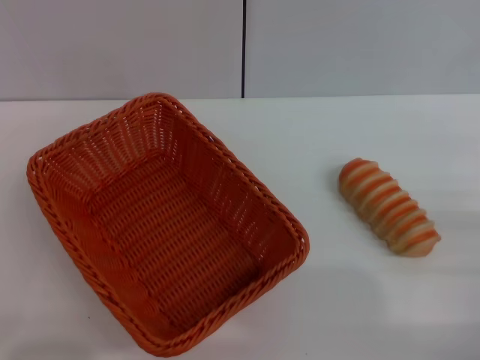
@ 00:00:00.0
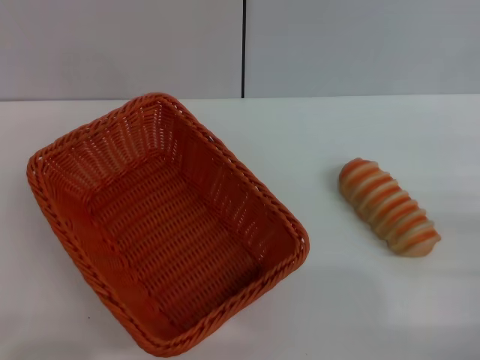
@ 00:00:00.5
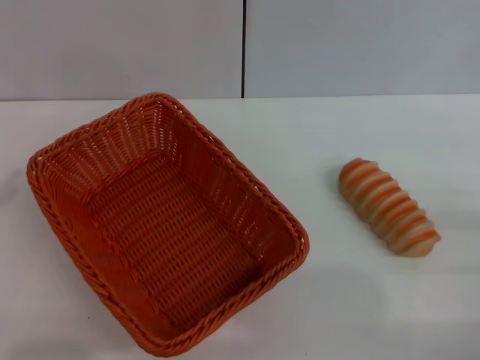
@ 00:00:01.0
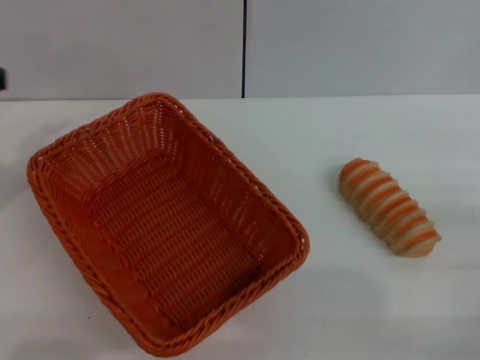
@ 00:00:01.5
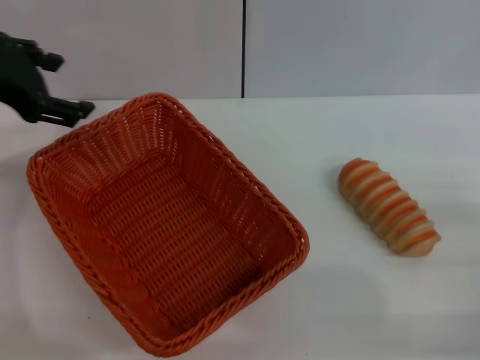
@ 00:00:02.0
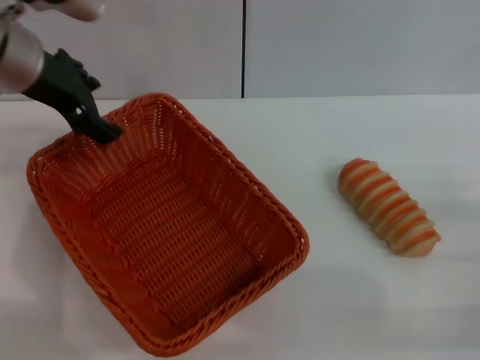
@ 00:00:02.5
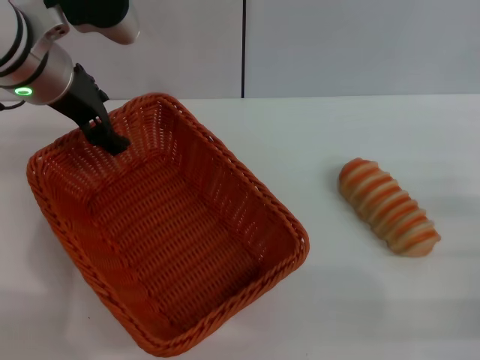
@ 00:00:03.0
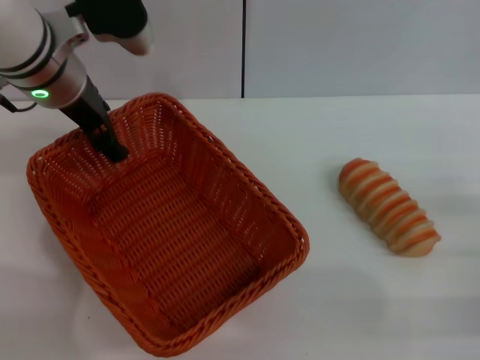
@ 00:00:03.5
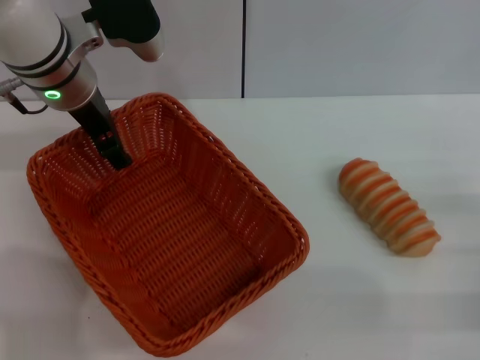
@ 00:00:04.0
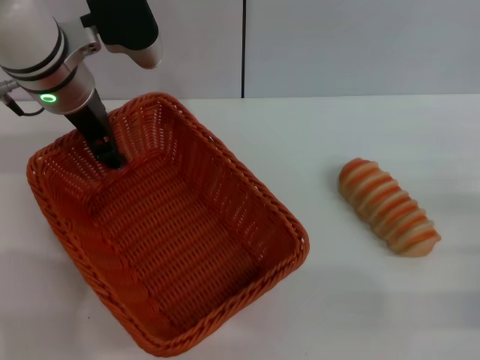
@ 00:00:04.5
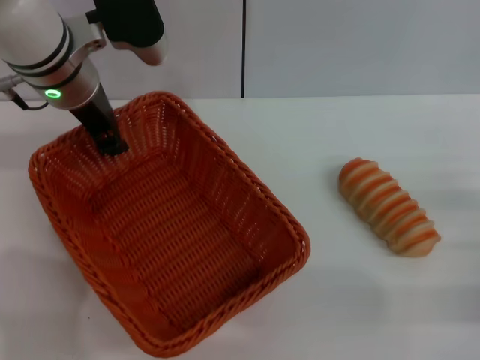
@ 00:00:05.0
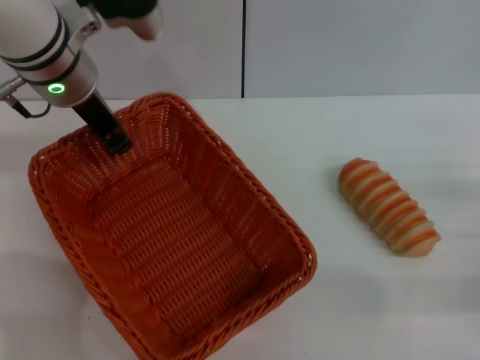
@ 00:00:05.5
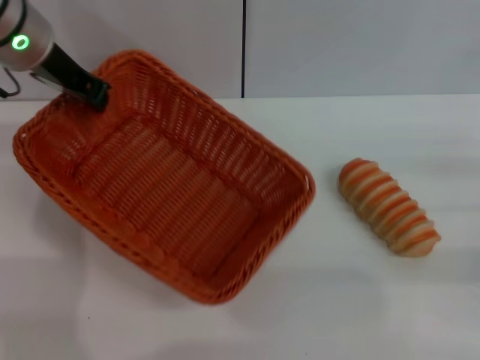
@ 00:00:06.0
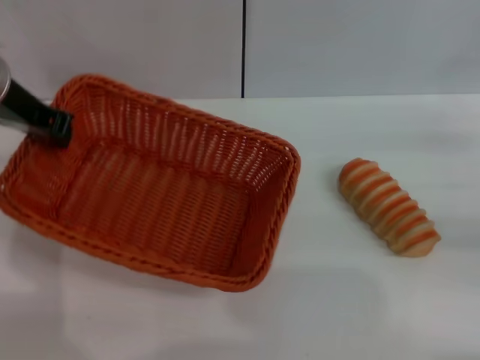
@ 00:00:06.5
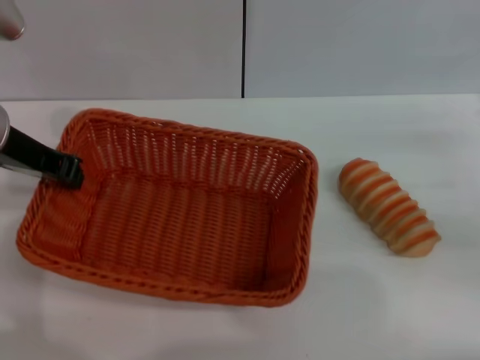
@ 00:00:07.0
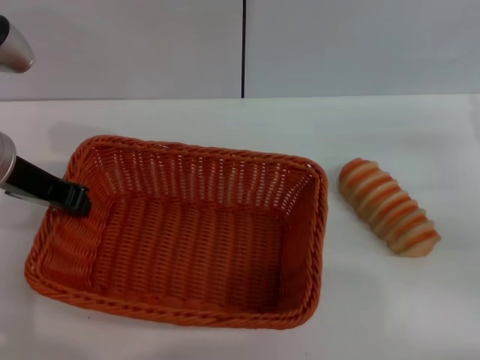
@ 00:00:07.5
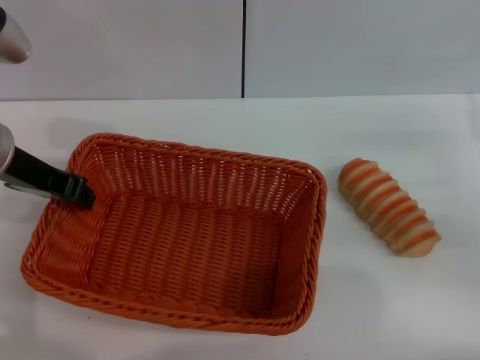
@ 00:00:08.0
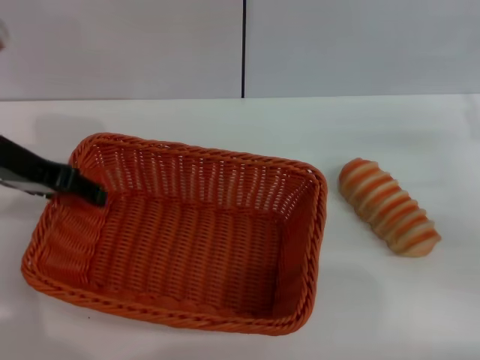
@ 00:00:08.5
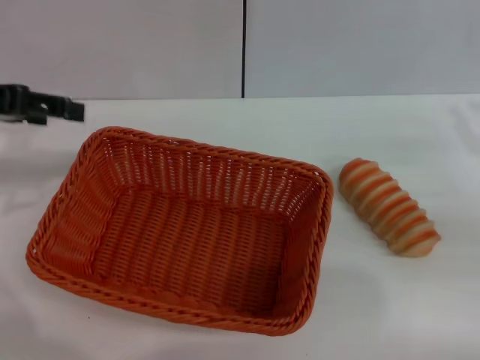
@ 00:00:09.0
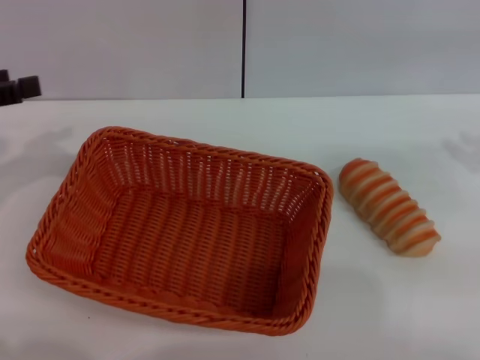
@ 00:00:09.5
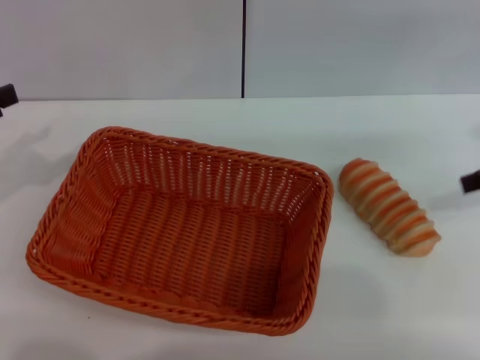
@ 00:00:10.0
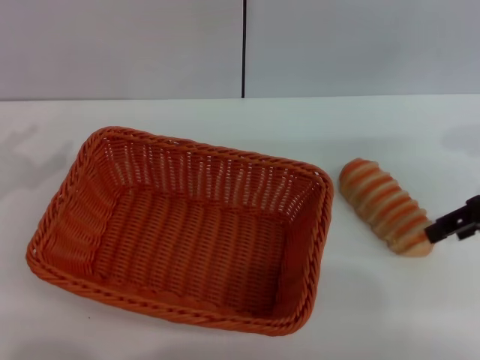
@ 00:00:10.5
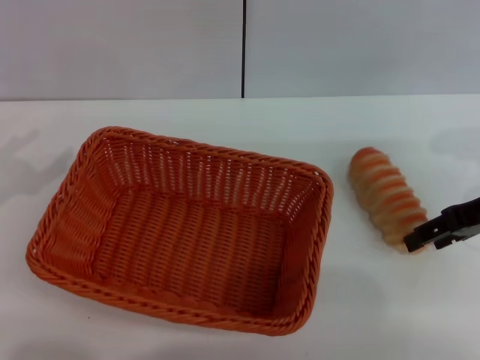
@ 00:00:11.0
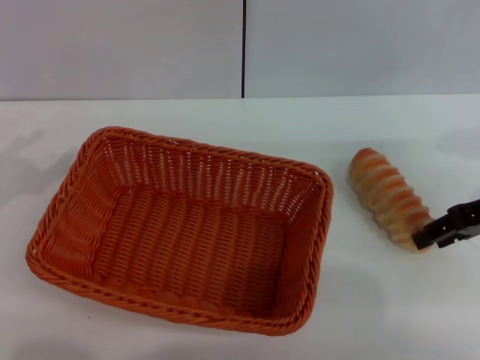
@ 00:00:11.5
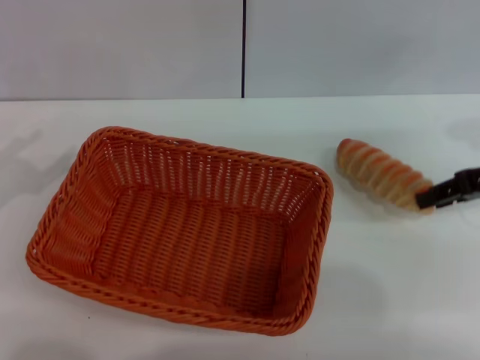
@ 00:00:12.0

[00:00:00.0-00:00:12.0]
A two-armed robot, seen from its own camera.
Step, 00:00:00.0 to 00:00:06.0: Pick up the light basket with the left gripper.
Step, 00:00:06.5 to 00:00:08.5: Place the light basket in the center of view with the left gripper.
00:00:00.0 to 00:00:02.0: The left gripper travels upward and forward by approximately 30 cm, and opens.
00:00:02.0 to 00:00:04.0: The left gripper moves to the right, forward and downward, approximately 15 cm.
00:00:04.0 to 00:00:06.0: The left gripper changes place by about 5 cm, and closes; the right gripper ends up roughly 5 cm from where it was.
00:00:06.0 to 00:00:08.0: The right gripper shifts by approximately 5 cm; the left gripper travels backward by about 10 cm.
00:00:08.0 to 00:00:10.0: The left gripper travels to the left and backward by approximately 15 cm, and opens its fingers, while the right gripper heads upward, covering about 10 cm.
00:00:10.0 to 00:00:12.0: The right gripper closes up.

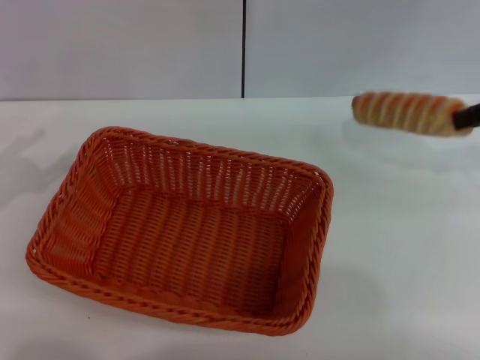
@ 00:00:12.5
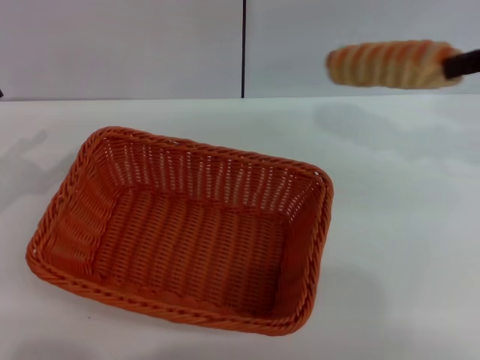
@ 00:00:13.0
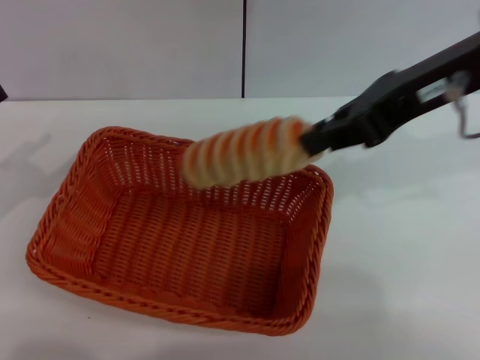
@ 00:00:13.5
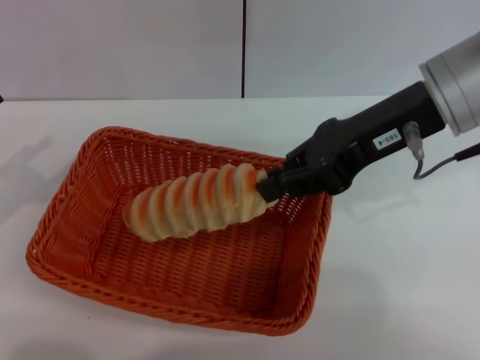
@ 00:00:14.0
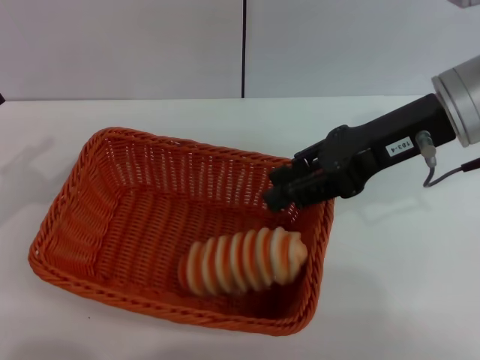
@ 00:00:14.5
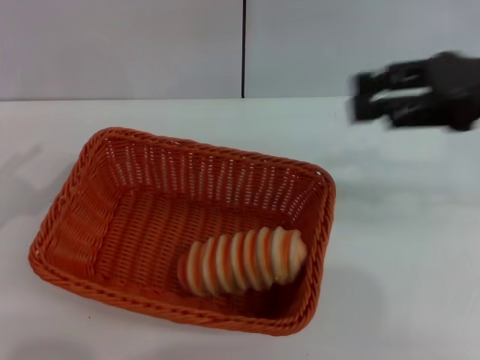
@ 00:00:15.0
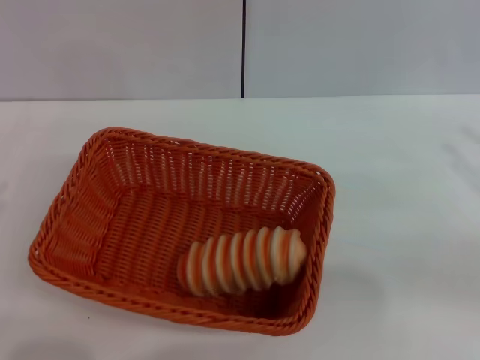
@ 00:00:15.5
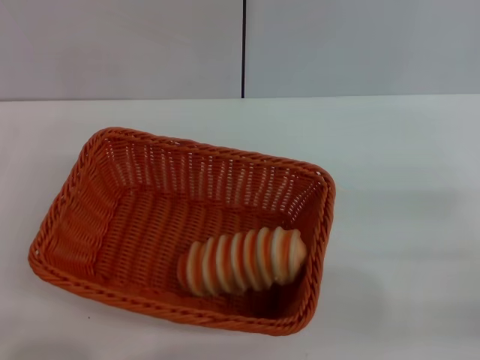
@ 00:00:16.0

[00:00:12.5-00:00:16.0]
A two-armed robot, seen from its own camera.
Step, 00:00:13.0 to 00:00:14.5: Place the long bread into the light basket with the right gripper.
00:00:12.5 to 00:00:14.5: The right gripper is displaced to the left by some 15 cm, and closes, then reopens.
00:00:14.5 to 00:00:16.0: The left gripper heads backward and downward, covering about 10 cm, while the right gripper heads to the right, downward and backward, covering roughly 25 cm.

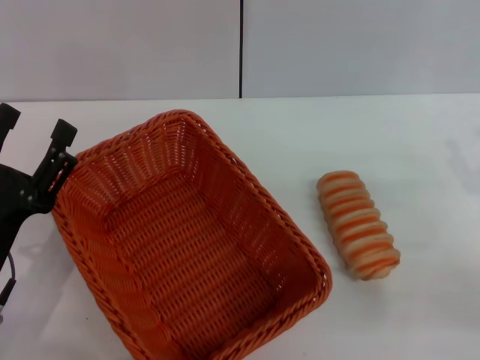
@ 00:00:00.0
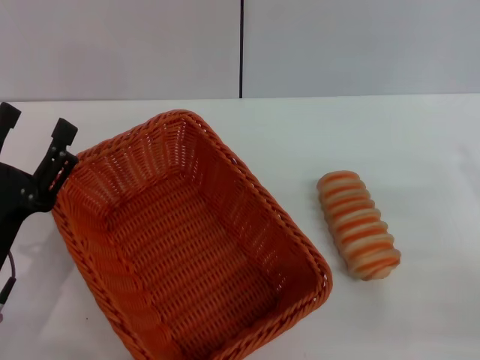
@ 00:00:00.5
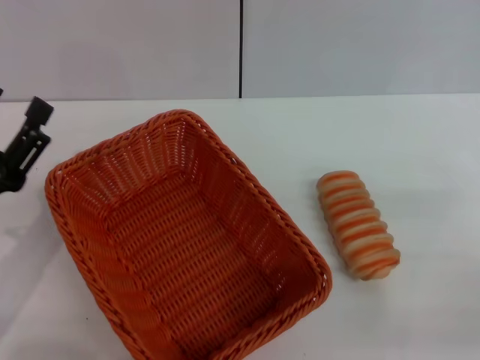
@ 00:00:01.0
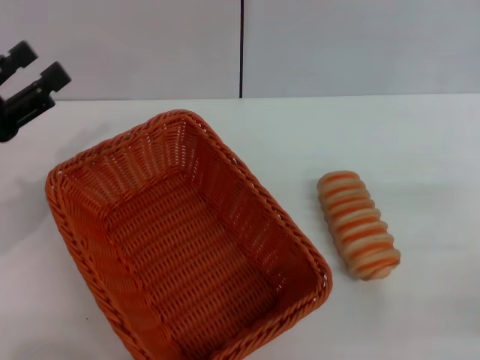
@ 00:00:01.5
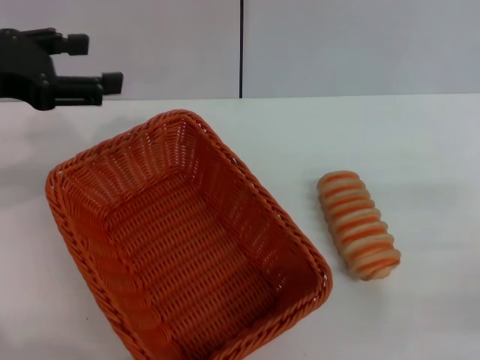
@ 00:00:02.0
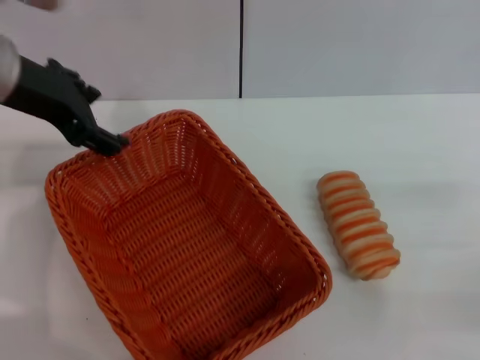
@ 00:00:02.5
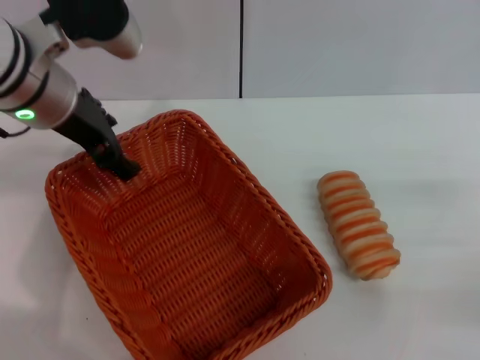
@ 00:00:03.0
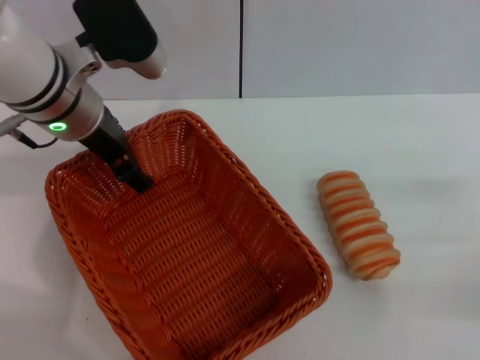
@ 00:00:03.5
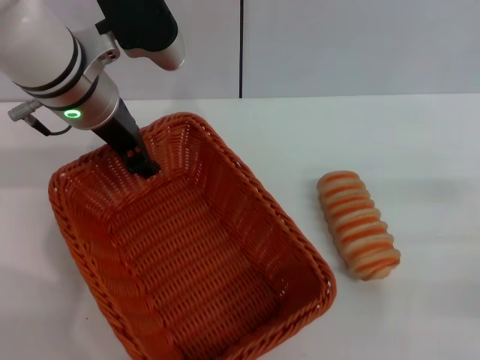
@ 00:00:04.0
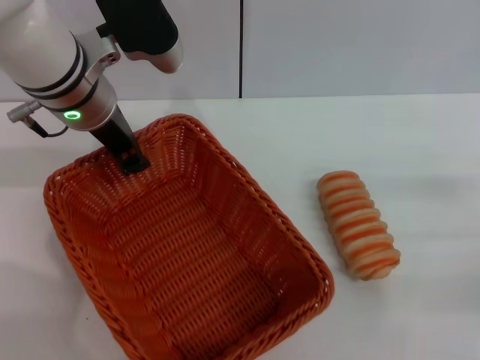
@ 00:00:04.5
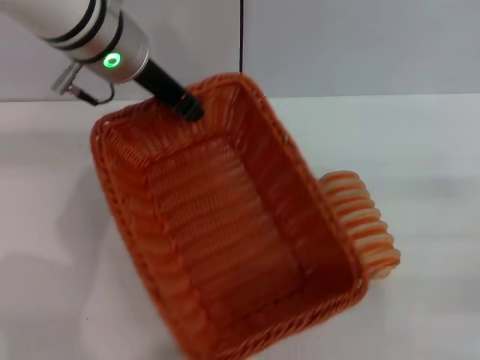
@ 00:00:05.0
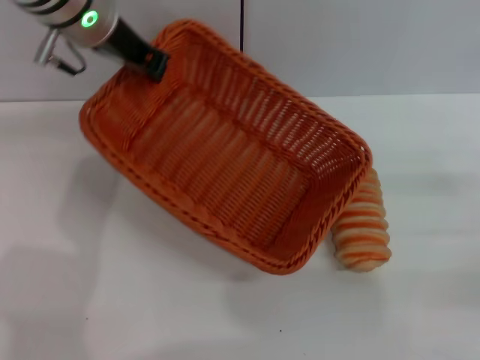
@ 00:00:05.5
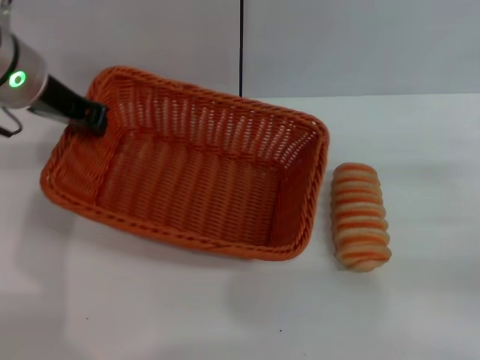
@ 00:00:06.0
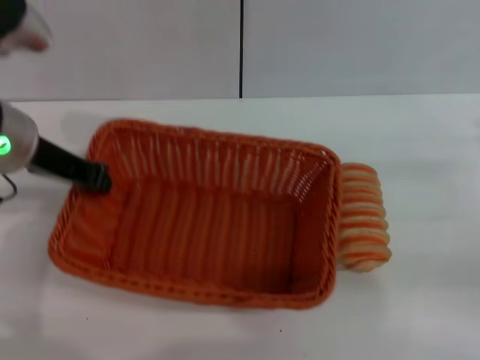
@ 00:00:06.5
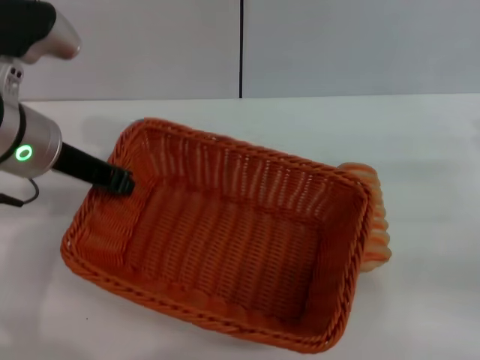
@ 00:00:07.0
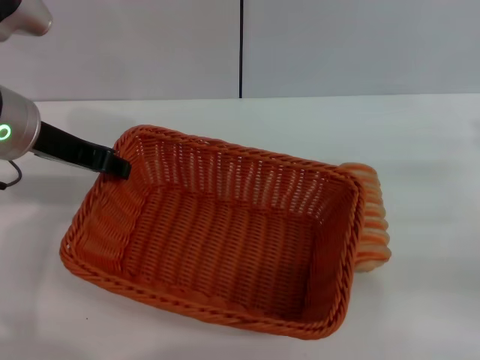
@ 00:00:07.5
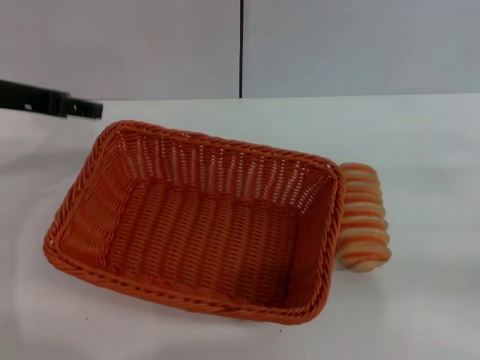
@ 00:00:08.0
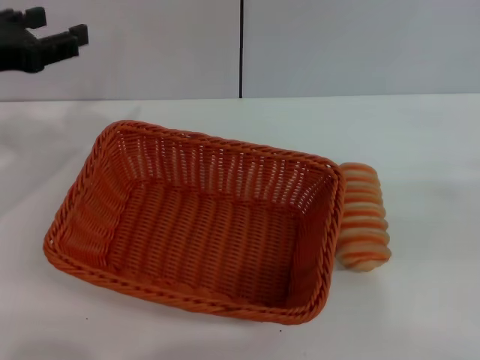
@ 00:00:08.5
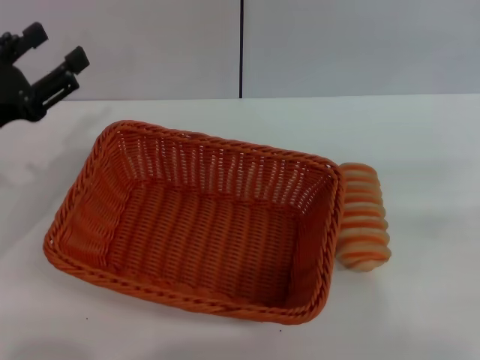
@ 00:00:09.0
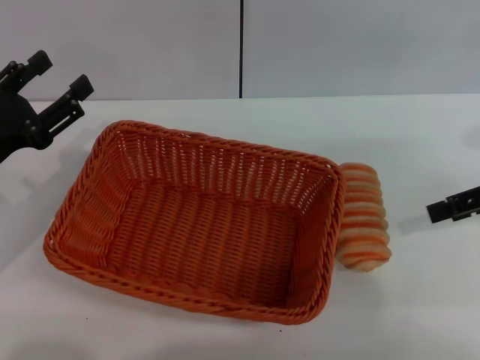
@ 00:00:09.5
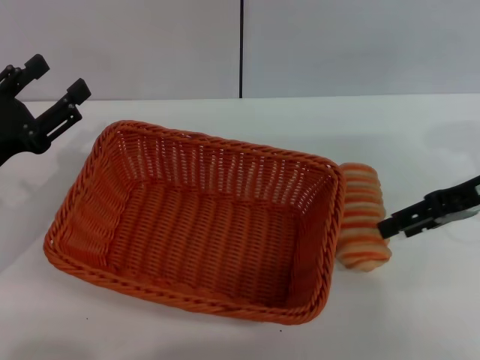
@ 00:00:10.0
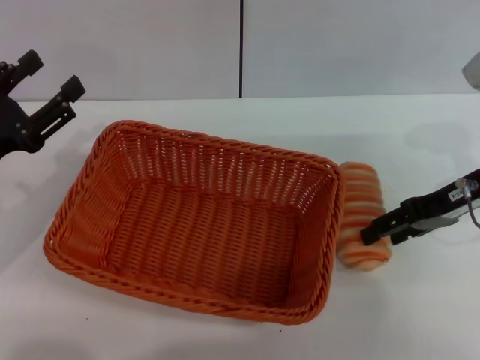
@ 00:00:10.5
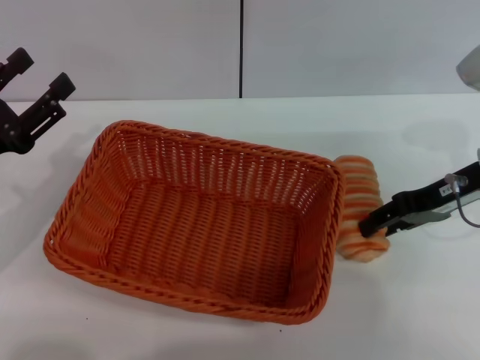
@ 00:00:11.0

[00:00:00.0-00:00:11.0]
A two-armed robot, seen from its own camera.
Step, 00:00:00.0 to 00:00:04.5: Grasp the basket with the left gripper.
Step, 00:00:05.0 to 00:00:08.0: Place the basket in the center of the table with the left gripper.
00:00:00.0 to 00:00:02.0: The left gripper shifts some 20 cm upward and forward.
00:00:02.0 to 00:00:03.5: The left gripper is displaced to the right and forward by roughly 15 cm.
00:00:03.5 to 00:00:05.5: The left gripper moves upward and forward, roughly 5 cm, and closes its fingers.
00:00:05.5 to 00:00:07.5: The left gripper goes roughly 10 cm backward and to the left.
00:00:07.5 to 00:00:09.0: The left gripper heads to the left, downward and backward, covering about 10 cm, and opens up. Meanwhile the right gripper shifts roughly 15 cm upward.
00:00:09.0 to 00:00:11.0: The right gripper is displaced to the left, downward and forward by approximately 20 cm.
